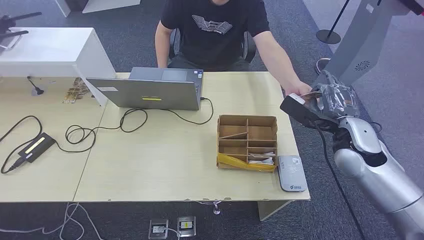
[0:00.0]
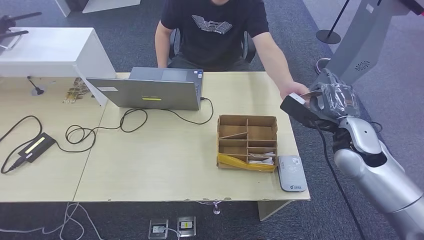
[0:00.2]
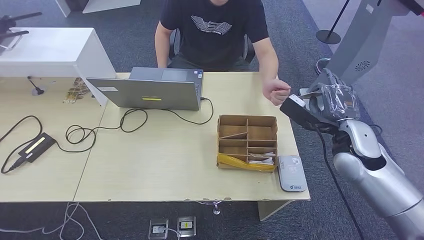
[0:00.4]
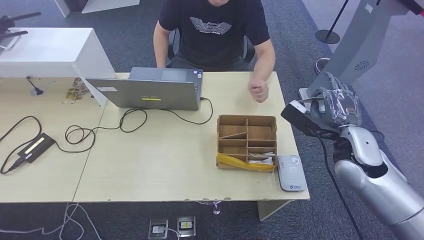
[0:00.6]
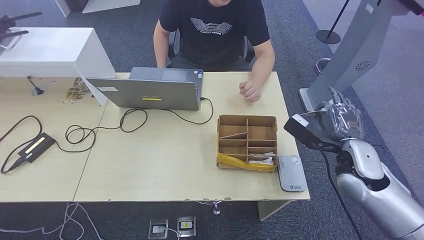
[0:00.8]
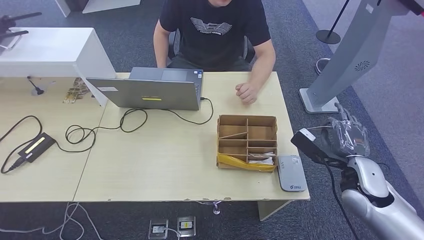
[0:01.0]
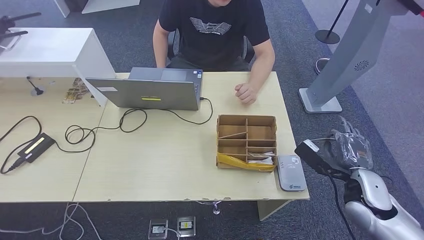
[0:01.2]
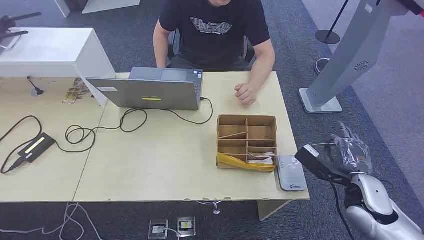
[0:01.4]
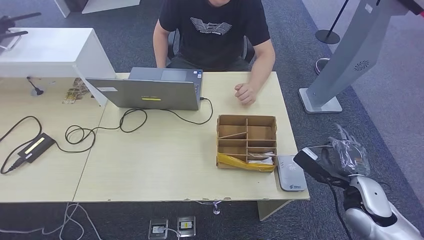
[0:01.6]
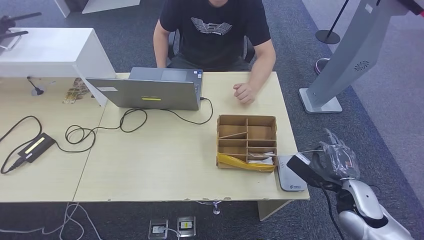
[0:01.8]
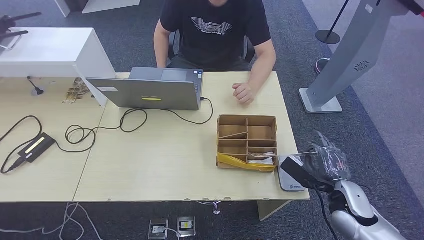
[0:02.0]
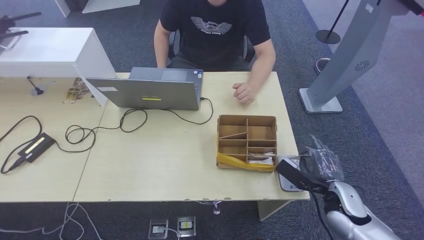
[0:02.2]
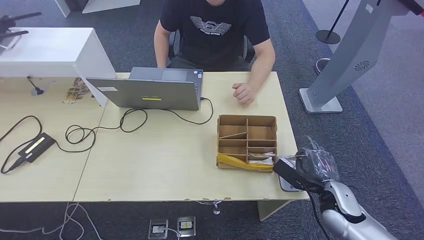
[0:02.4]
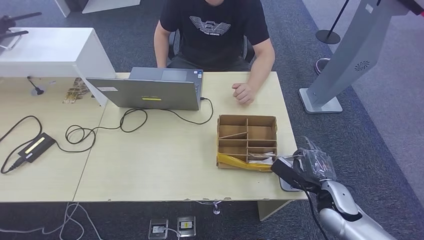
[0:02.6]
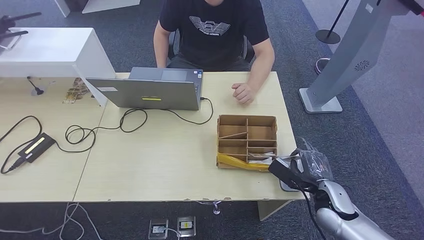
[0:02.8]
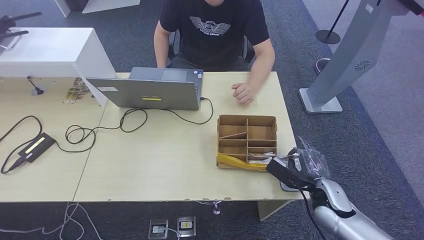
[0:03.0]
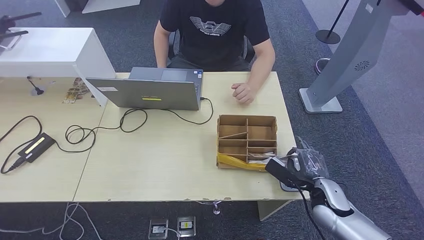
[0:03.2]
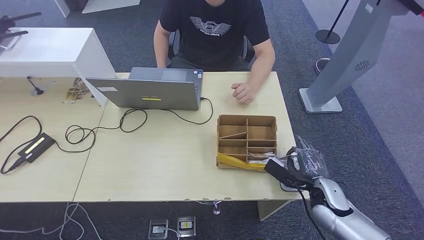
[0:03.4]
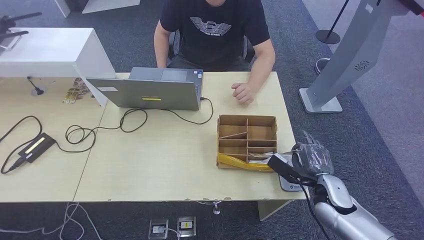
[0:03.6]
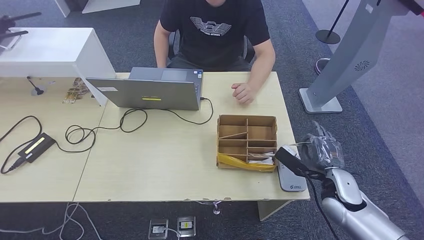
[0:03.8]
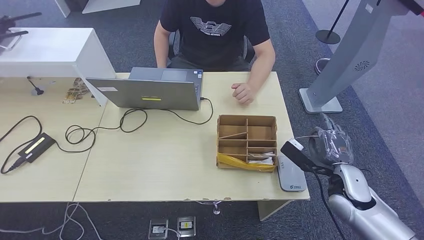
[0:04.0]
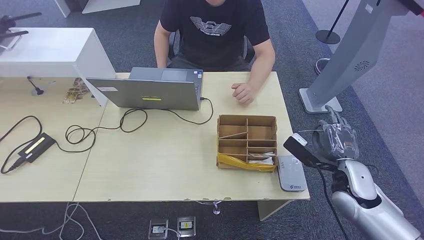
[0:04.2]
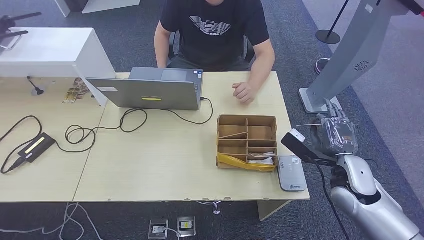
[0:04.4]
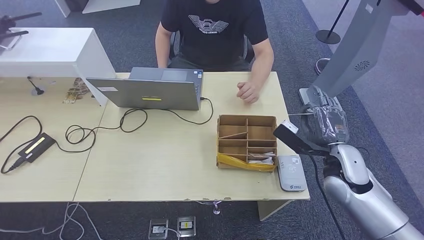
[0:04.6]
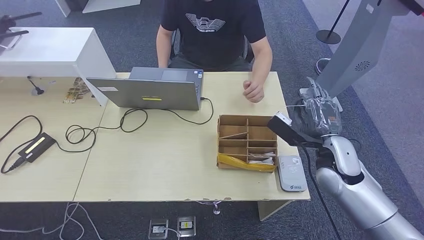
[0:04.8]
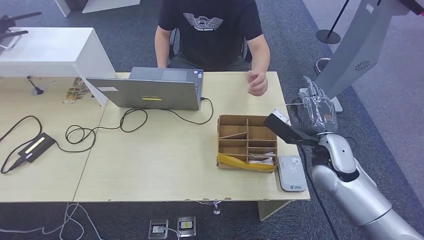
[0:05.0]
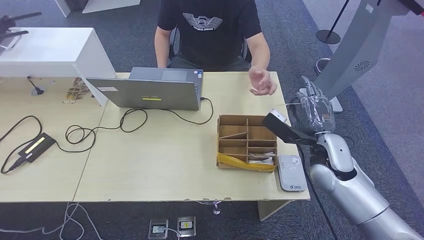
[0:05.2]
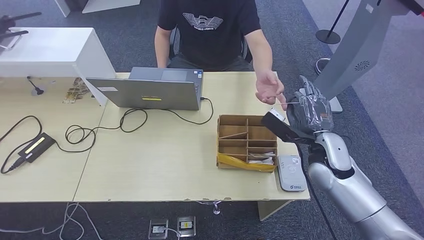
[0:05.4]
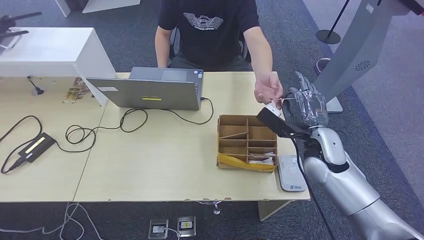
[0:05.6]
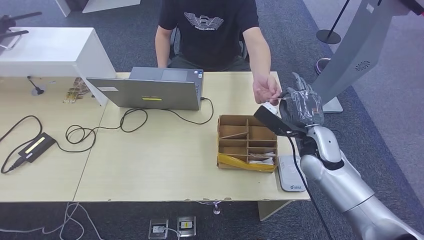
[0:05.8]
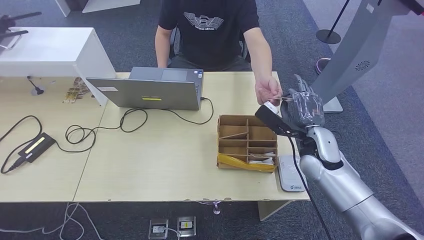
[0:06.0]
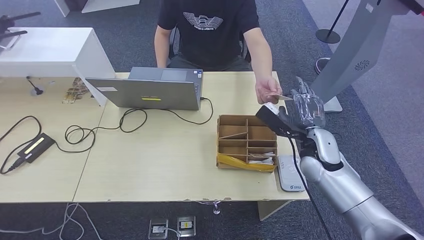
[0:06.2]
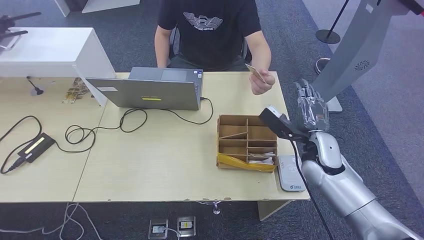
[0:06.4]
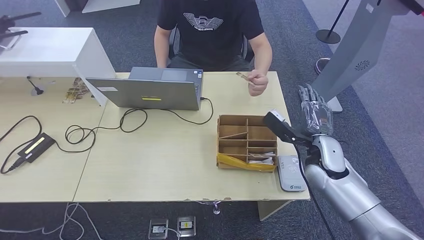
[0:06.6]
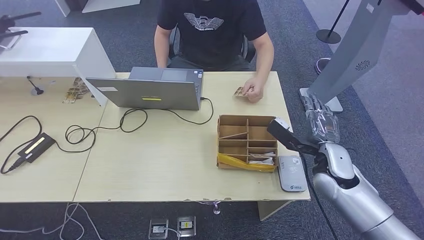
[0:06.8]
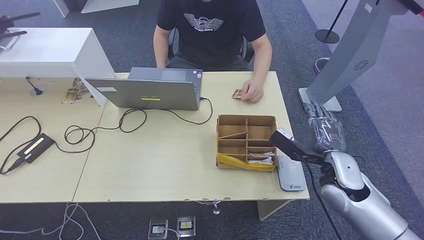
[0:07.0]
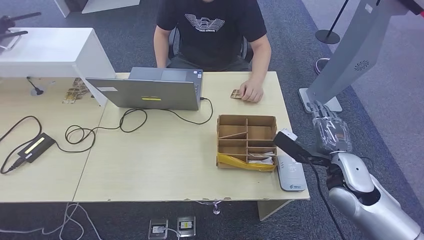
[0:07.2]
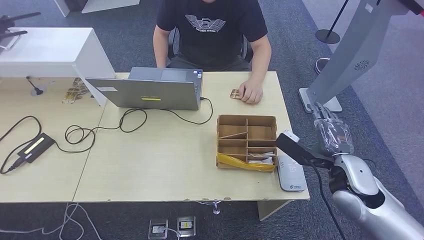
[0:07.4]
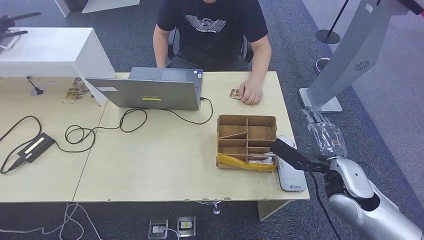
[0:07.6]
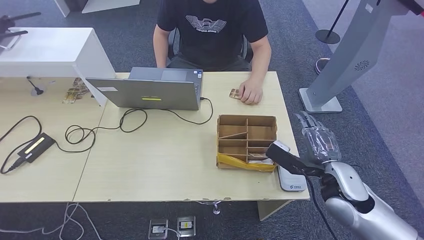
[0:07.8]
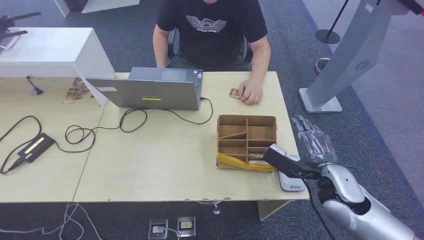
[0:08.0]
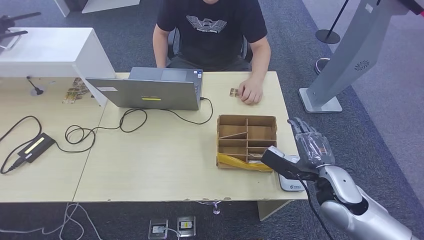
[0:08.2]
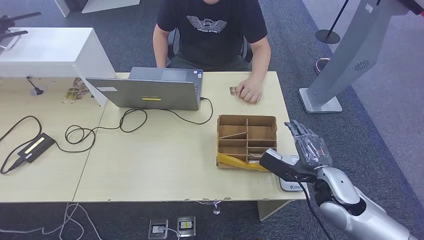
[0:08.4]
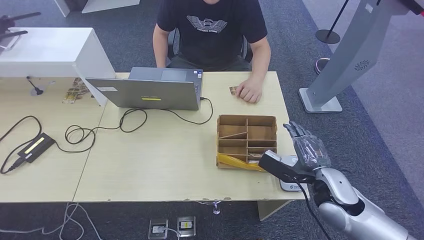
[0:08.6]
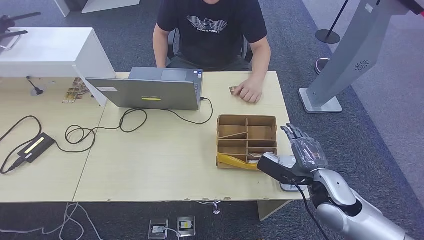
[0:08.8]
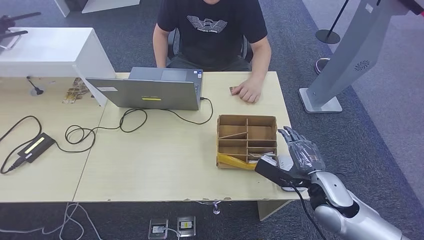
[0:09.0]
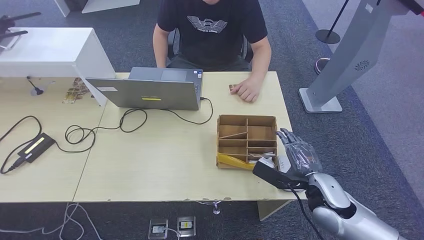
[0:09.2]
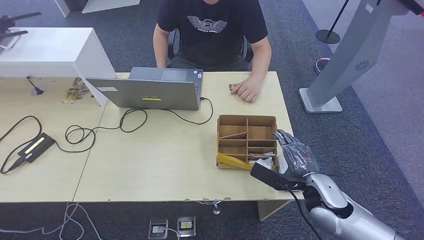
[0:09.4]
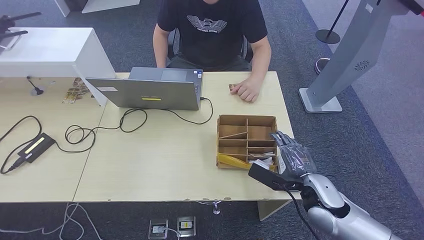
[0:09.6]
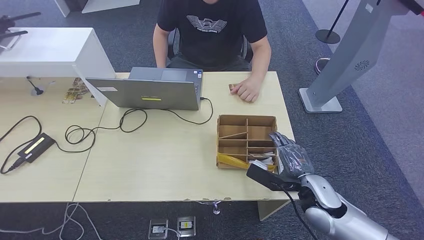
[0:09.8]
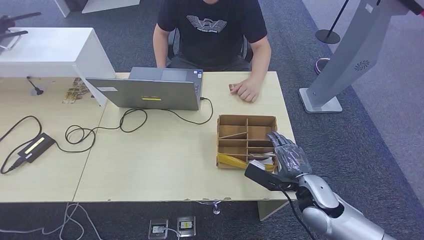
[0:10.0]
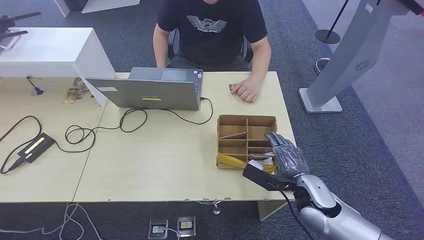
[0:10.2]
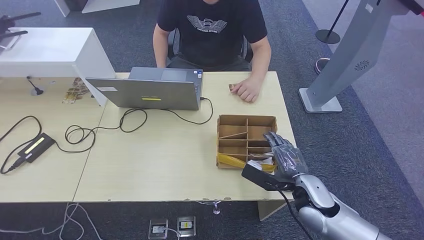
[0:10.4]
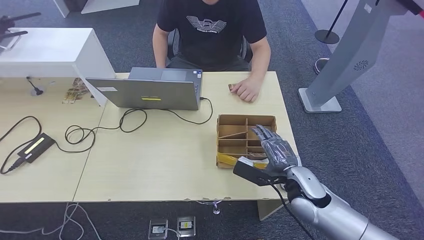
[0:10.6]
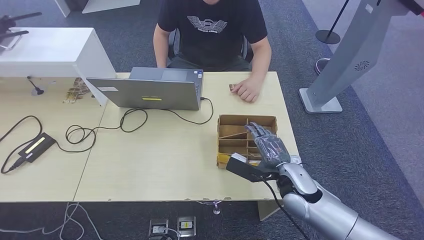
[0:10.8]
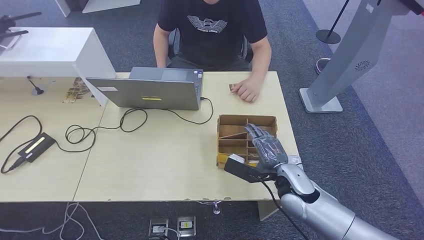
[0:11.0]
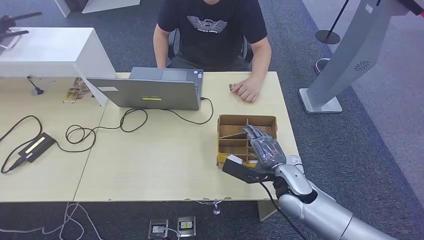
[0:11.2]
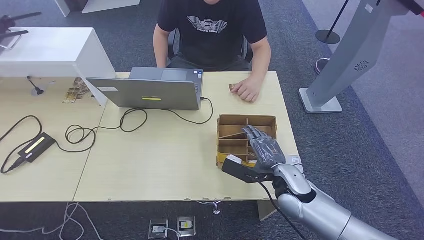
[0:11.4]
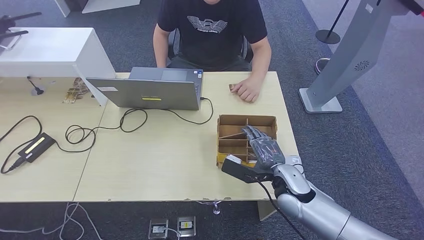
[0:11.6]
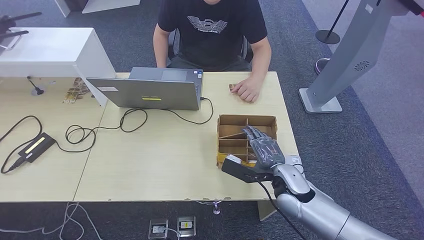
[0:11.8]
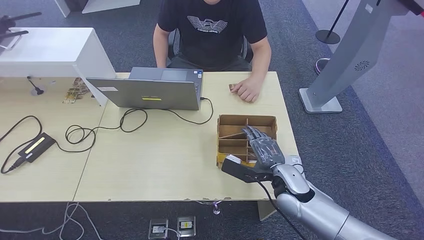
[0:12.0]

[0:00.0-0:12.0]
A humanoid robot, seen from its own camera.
Step, 0:00.0 to 0:00.8: Take the ID card from the person's hand.
Step, 0:01.8 to 0:03.6: Place the ID card on the card reader.
Step, 0:04.2 to 0:06.8: Hand the ID card to the person.
0:01.6 to 0:03.0: The right hand shifts some 5 cm downward.
0:03.0 to 0:04.4: The right hand is displaced upward by approximately 10 cm.
0:04.4 to 0:06.0: The right hand goes about 10 cm forward and to the left.
0:06.0 to 0:07.6: The right hand travels backward by about 10 cm.
0:07.6 to 0:09.0: The right hand ends up some 5 cm from where it was.
0:09.0 to 0:10.4: The hands make only small movements.
0:10.4 to 0:12.0: The left hand moves to the right and forward, about 10 cm. The right hand ends up about 5 cm from where it was.

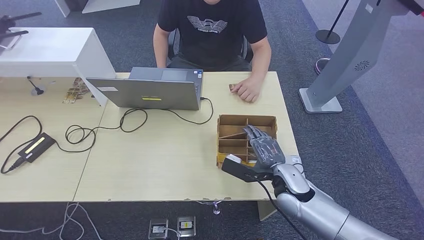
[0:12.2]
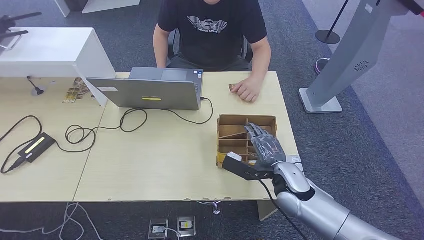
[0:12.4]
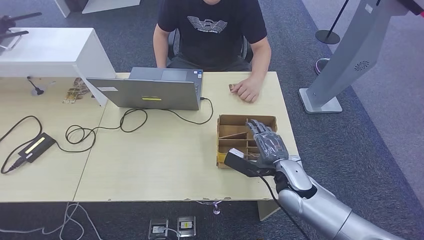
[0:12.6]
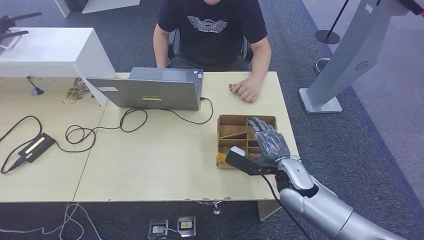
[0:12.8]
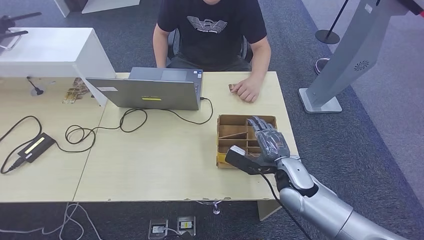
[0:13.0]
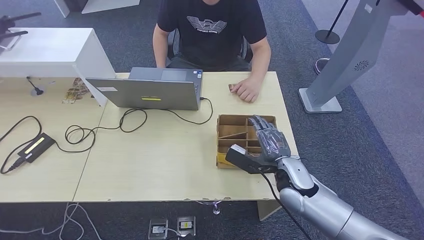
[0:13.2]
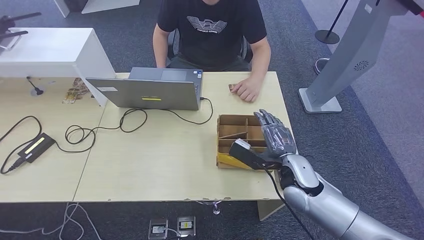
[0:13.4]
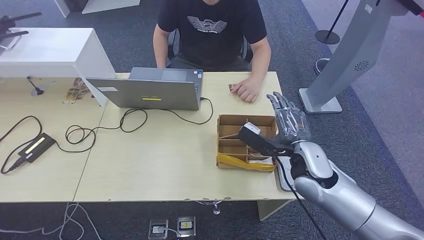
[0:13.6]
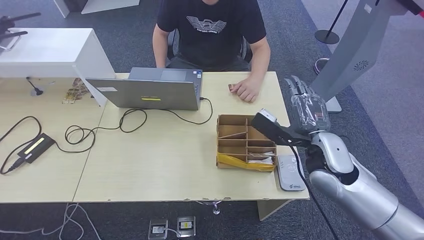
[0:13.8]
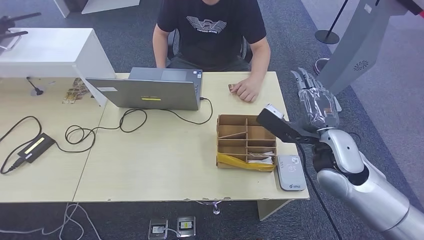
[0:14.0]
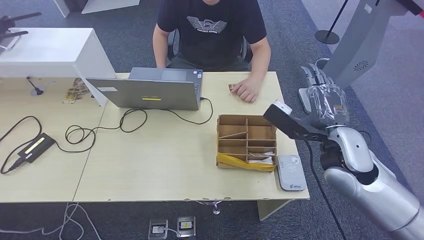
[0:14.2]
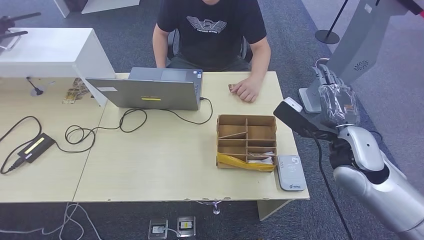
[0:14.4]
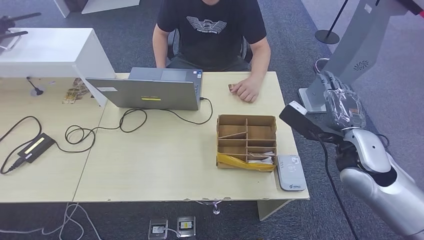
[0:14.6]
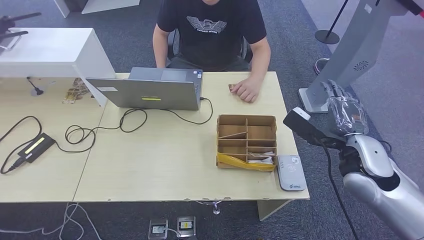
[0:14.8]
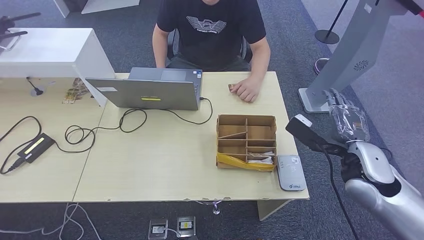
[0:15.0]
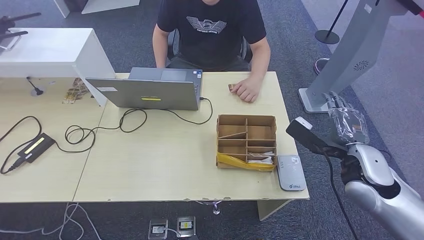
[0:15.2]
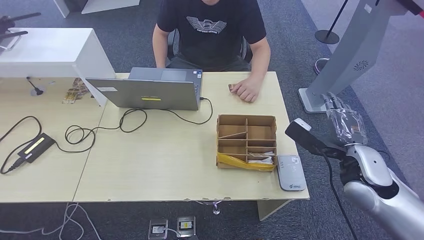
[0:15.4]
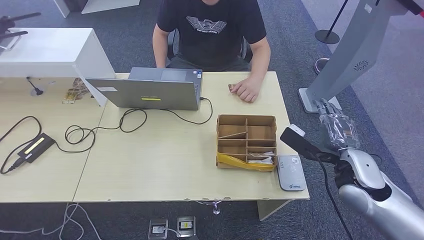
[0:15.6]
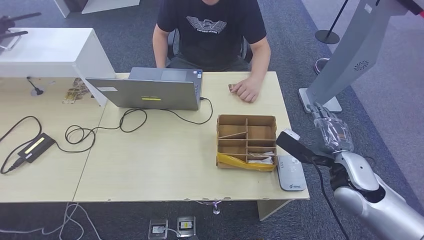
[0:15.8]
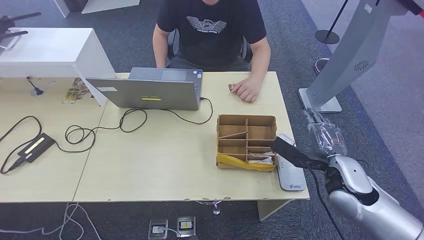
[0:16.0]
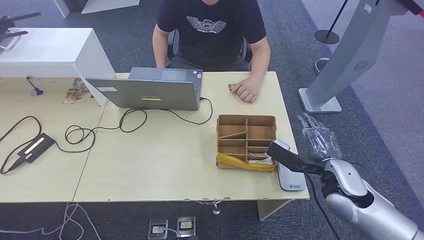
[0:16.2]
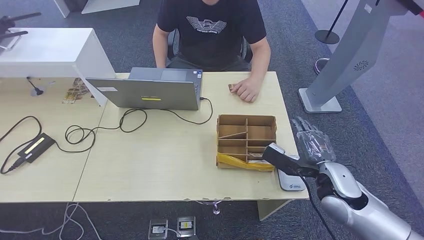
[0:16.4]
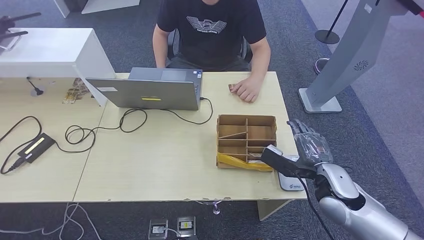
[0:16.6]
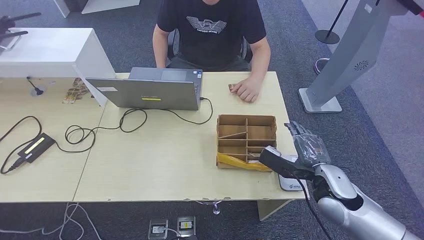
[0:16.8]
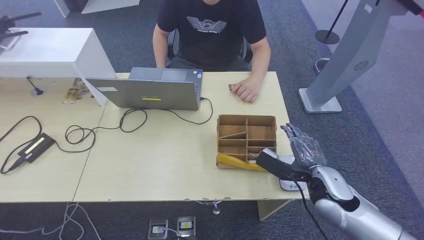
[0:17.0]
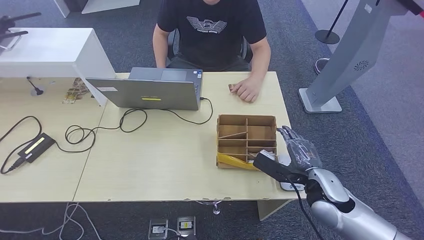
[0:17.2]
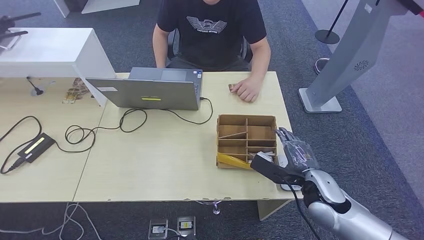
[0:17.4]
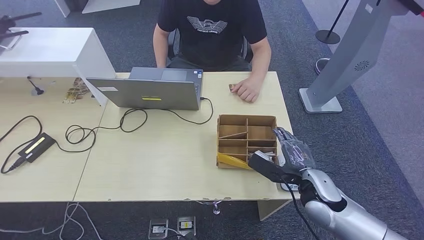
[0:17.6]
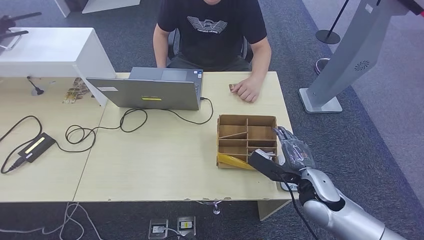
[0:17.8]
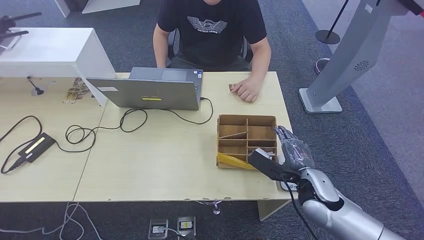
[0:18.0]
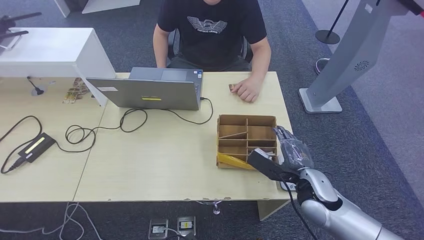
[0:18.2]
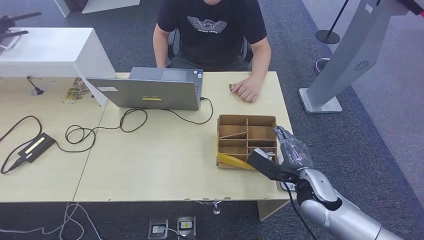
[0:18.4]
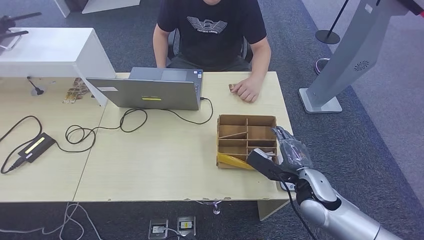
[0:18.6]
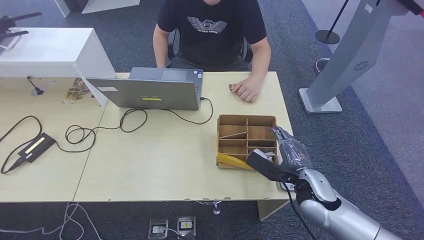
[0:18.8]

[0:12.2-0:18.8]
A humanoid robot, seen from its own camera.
0:12.2 to 0:13.8: The right hand heads upward, covering roughly 10 cm.
0:13.8 to 0:15.4: The right hand goes approximately 10 cm to the right.
0:15.4 to 0:17.2: The right hand is displaced downward by about 10 cm.
0:17.2 to 0:18.8: There are only small adjustments of the hands.
